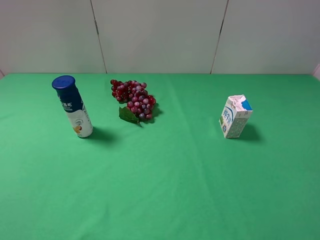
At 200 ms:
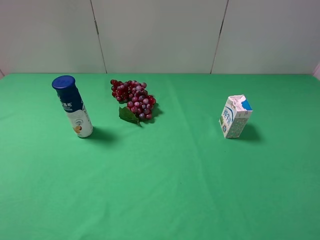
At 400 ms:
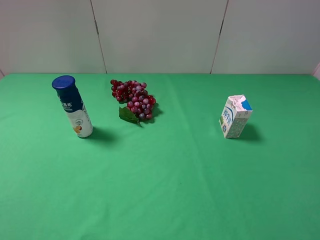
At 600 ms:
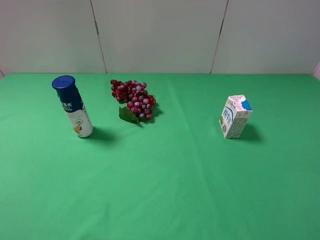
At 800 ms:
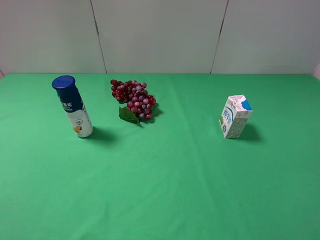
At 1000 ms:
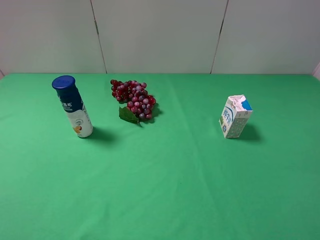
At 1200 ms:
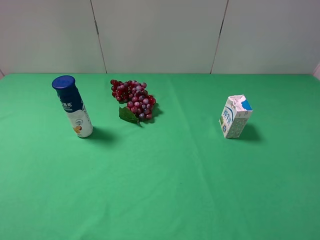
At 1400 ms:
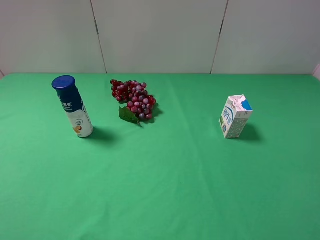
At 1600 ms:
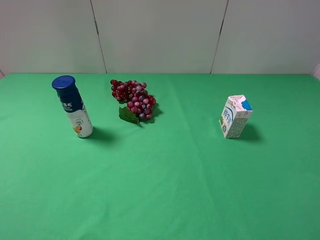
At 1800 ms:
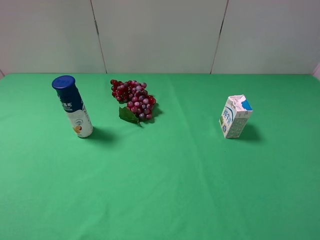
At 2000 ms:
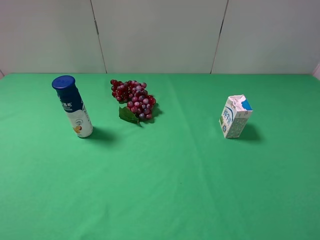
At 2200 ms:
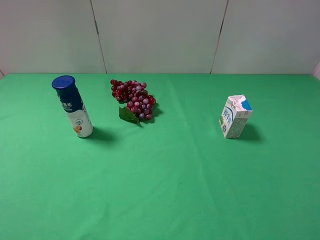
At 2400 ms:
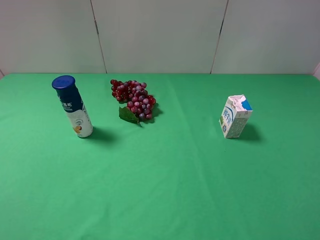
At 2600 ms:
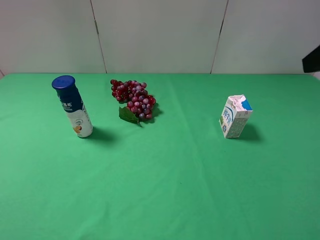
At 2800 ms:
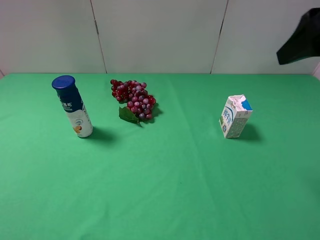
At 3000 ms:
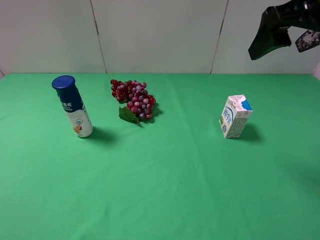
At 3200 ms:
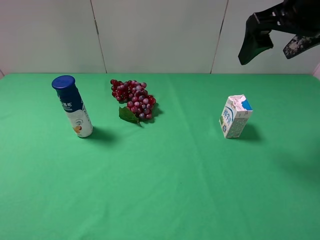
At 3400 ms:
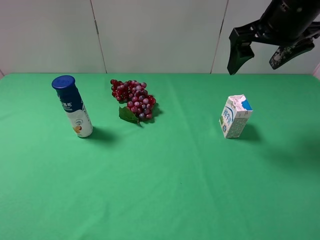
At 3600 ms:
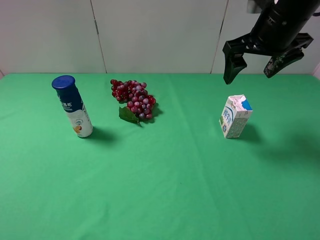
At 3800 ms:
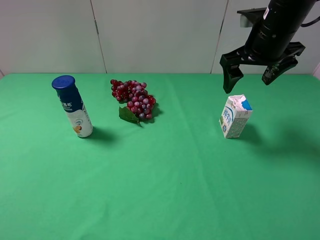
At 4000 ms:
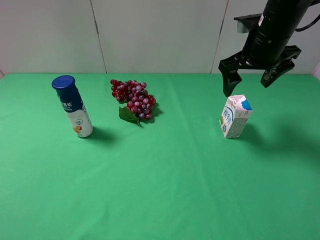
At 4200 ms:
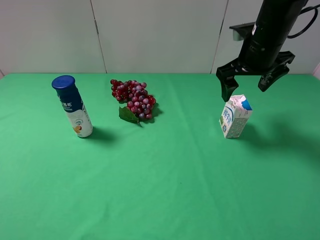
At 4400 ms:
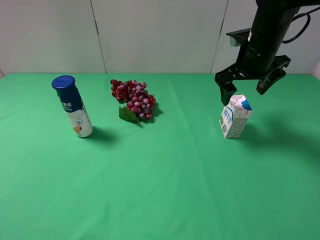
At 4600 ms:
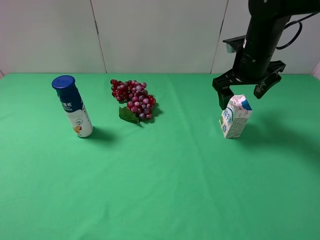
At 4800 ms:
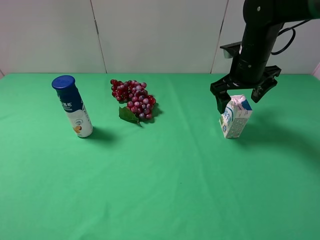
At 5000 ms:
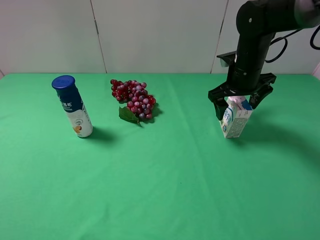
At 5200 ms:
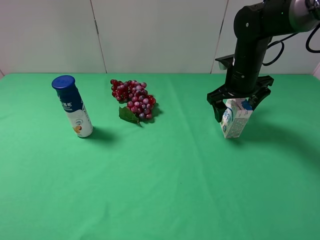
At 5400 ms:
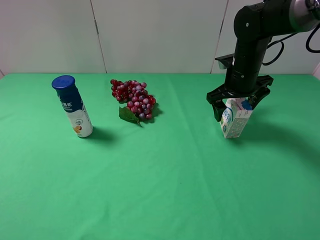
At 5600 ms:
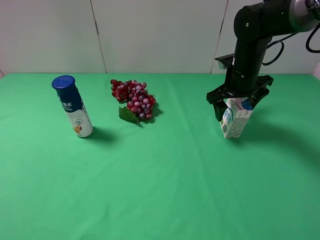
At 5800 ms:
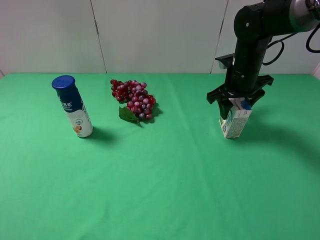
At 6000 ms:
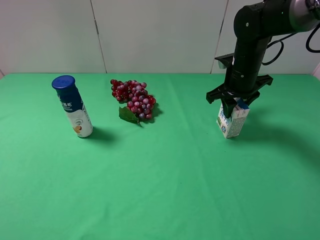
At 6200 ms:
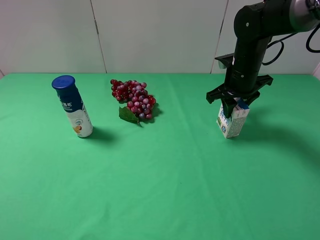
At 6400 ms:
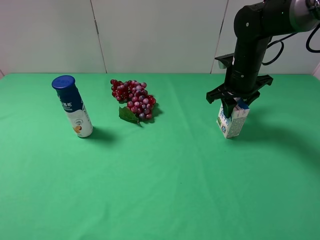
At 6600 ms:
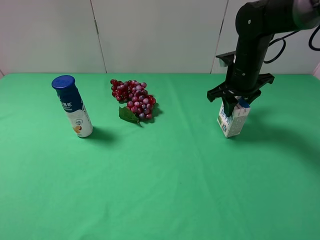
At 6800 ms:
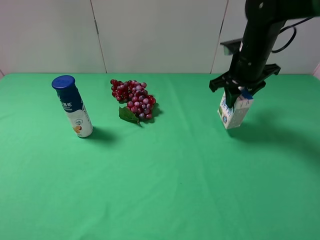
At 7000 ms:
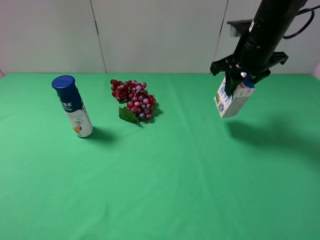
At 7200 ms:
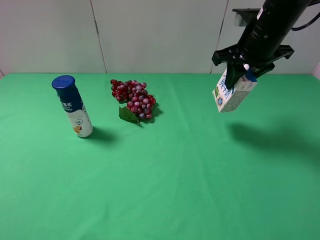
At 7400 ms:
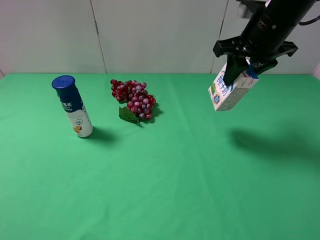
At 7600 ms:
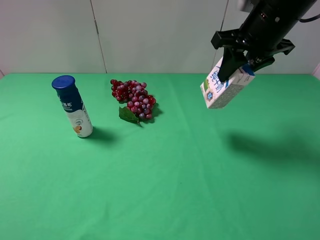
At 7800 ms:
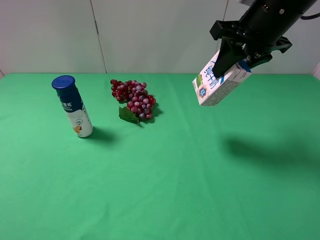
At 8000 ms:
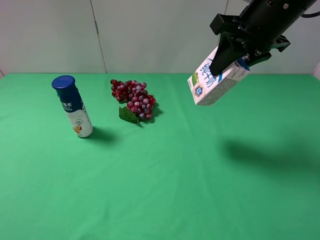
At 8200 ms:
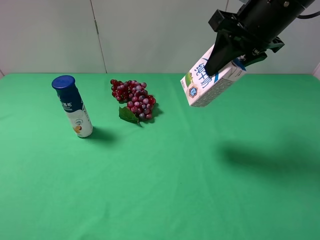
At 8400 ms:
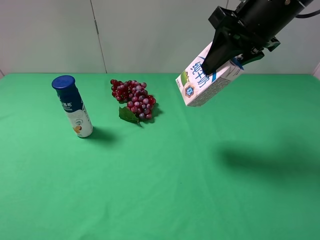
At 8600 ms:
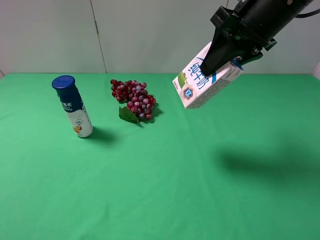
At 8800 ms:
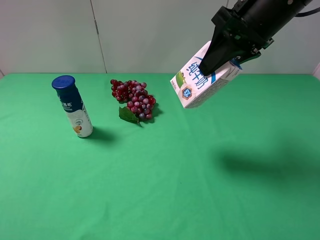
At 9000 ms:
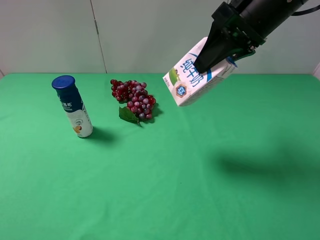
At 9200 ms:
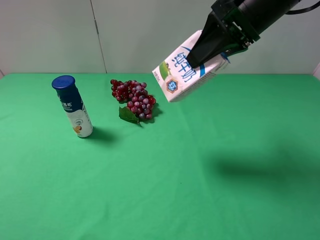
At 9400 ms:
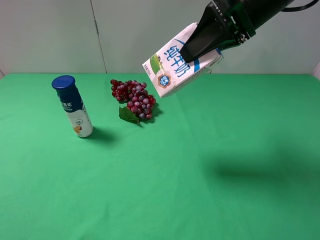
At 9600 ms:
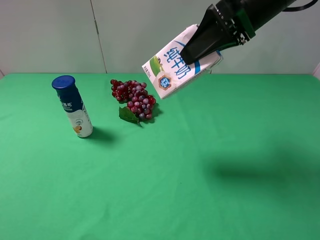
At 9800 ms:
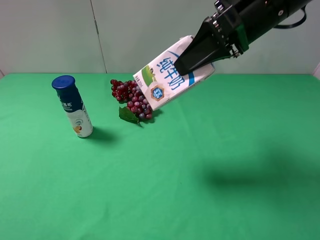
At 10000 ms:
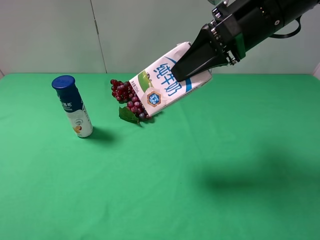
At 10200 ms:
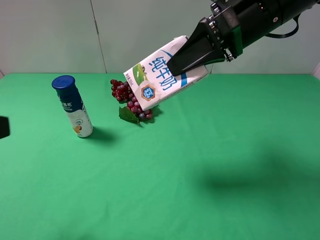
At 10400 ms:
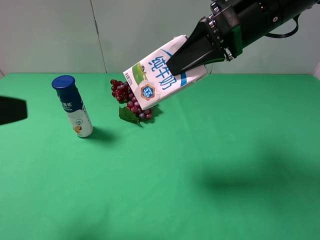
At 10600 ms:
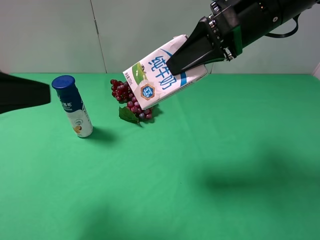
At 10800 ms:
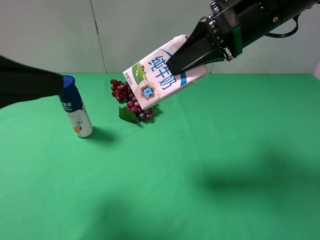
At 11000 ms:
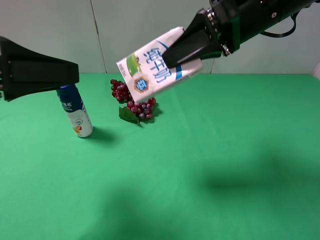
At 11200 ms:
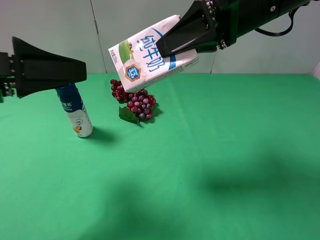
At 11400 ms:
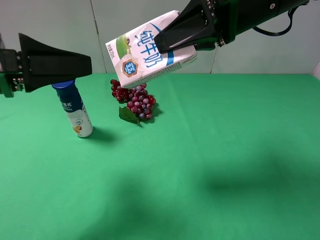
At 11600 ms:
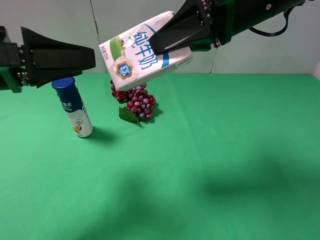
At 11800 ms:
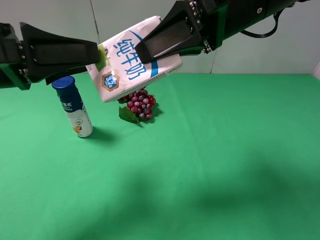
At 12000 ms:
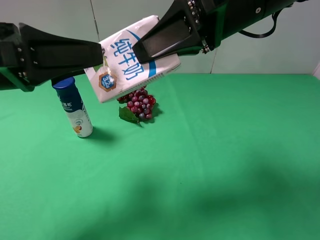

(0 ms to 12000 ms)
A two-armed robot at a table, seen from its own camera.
Task of the whole recording: use the right gripper to pick up the item and transfer it from the right gripper to the left gripper.
0 ms - 1600 ms: Neither gripper changes place.
1600 ms - 3000 ms: The right gripper moves forward, approximately 25 cm.
3000 ms - 4400 ms: The right gripper shifts some 15 cm downward and forward.
4400 ms - 6000 ms: The right gripper shifts roughly 5 cm downward, and closes.
6000 ms - 7600 ms: The right gripper shifts approximately 15 cm upward and backward.
9000 ms - 10400 ms: The left gripper heads forward, covering roughly 10 cm.
10400 ms - 12000 ms: The left gripper heads forward and to the right, covering roughly 10 cm.

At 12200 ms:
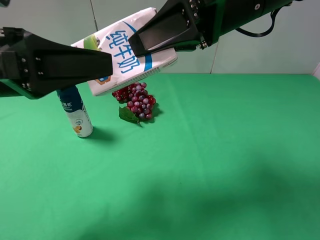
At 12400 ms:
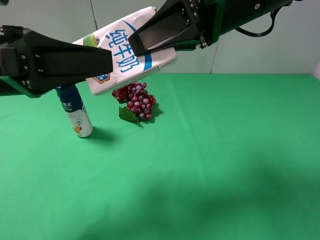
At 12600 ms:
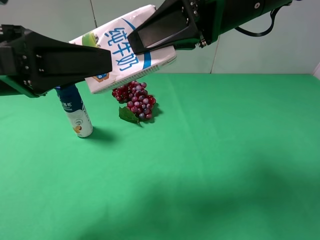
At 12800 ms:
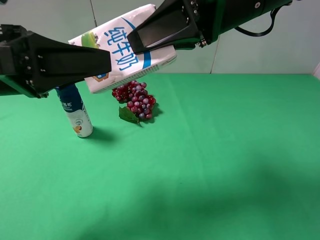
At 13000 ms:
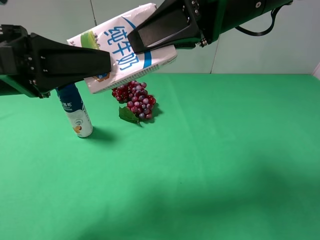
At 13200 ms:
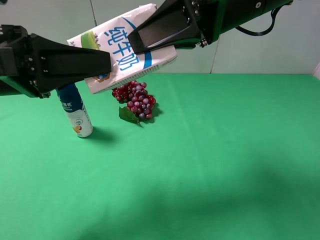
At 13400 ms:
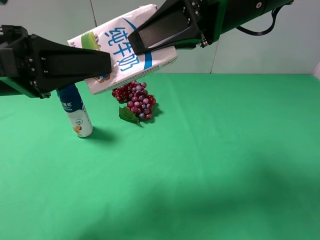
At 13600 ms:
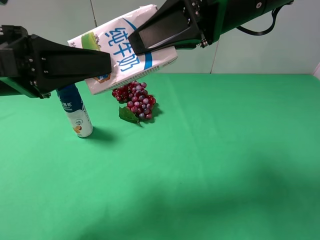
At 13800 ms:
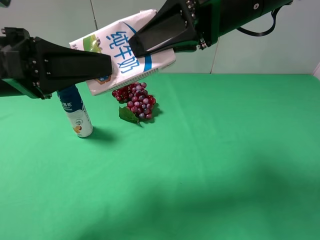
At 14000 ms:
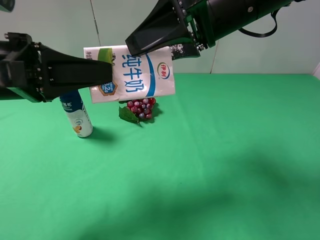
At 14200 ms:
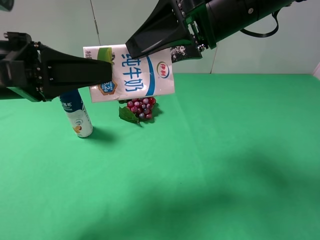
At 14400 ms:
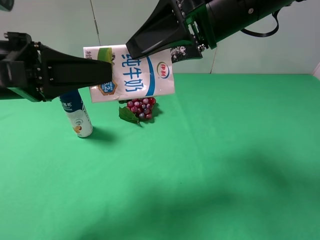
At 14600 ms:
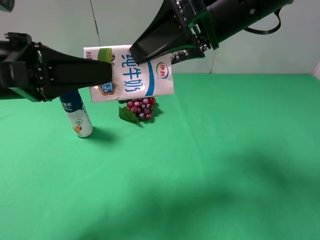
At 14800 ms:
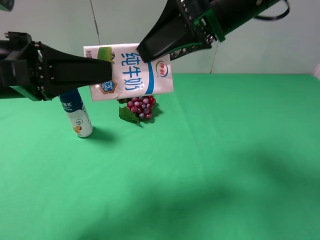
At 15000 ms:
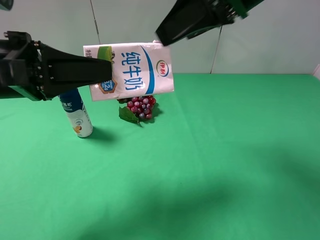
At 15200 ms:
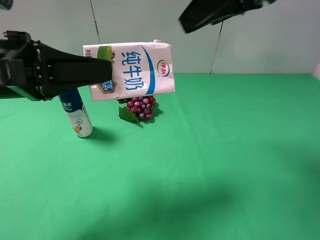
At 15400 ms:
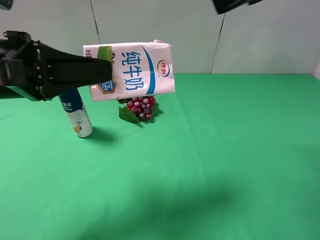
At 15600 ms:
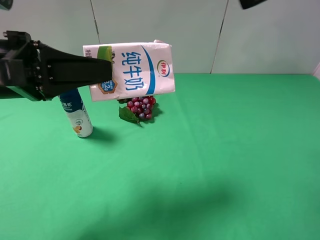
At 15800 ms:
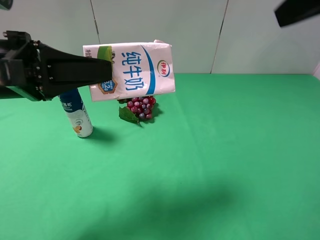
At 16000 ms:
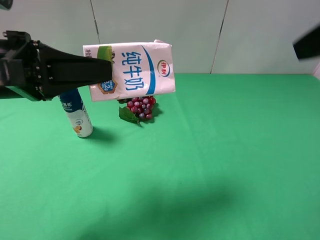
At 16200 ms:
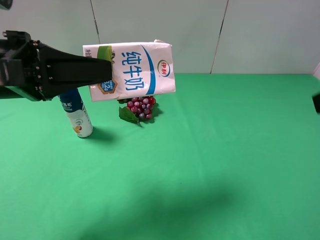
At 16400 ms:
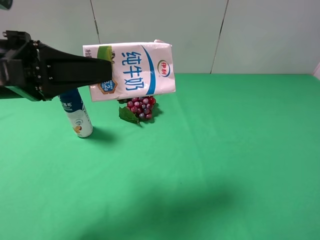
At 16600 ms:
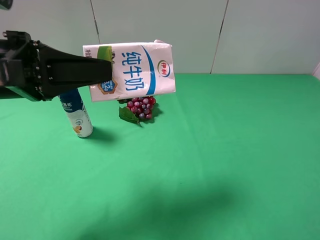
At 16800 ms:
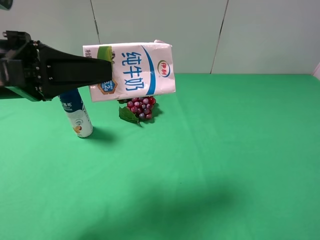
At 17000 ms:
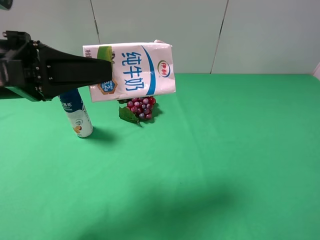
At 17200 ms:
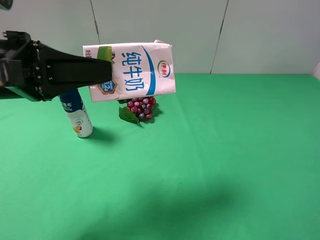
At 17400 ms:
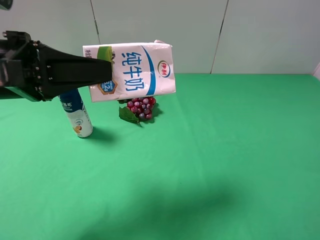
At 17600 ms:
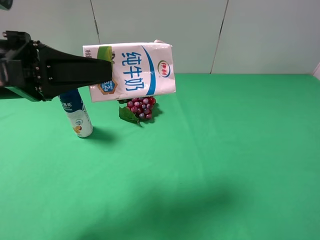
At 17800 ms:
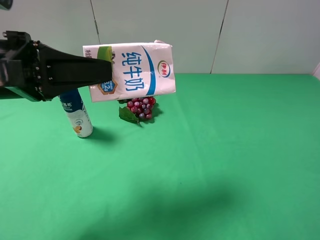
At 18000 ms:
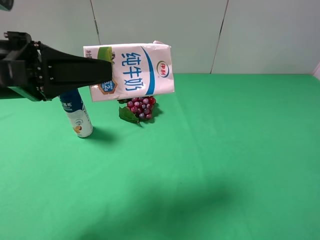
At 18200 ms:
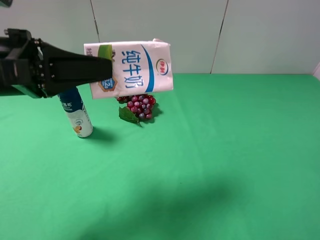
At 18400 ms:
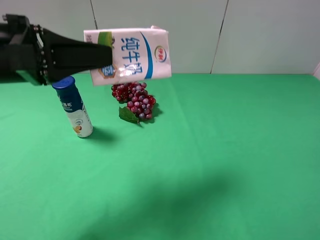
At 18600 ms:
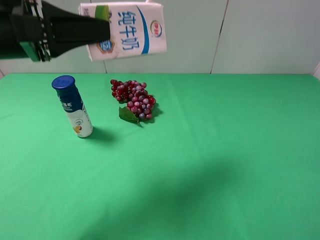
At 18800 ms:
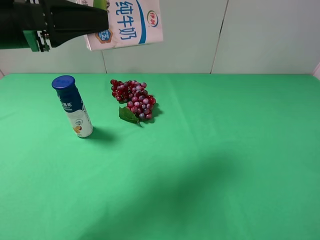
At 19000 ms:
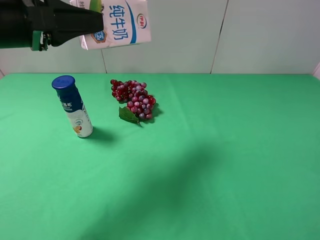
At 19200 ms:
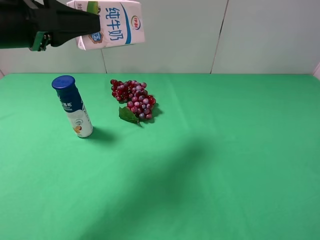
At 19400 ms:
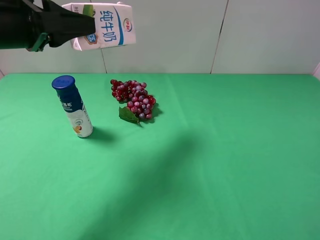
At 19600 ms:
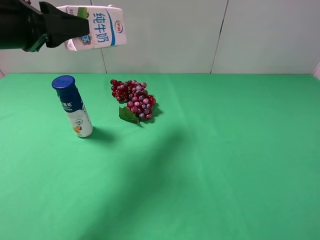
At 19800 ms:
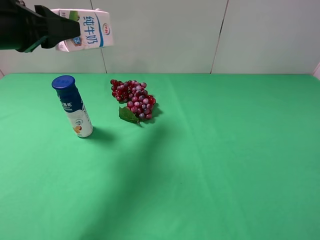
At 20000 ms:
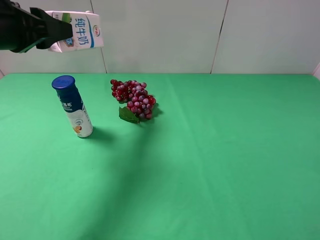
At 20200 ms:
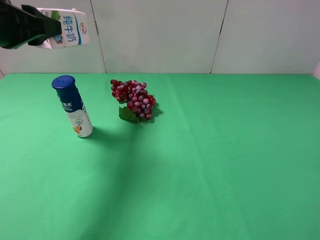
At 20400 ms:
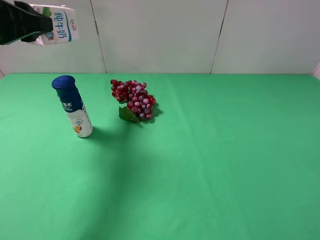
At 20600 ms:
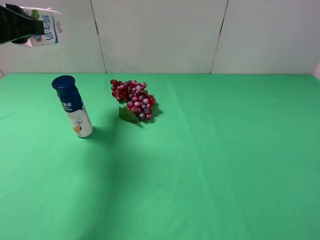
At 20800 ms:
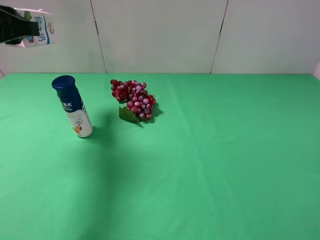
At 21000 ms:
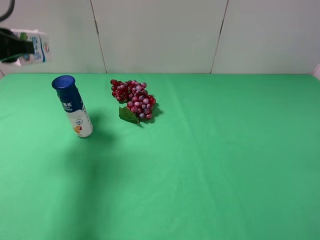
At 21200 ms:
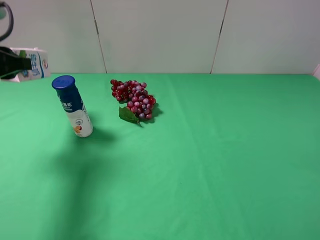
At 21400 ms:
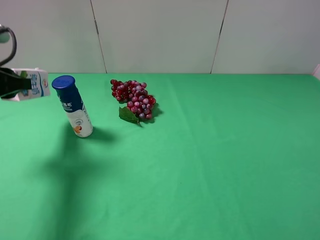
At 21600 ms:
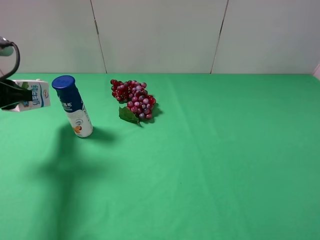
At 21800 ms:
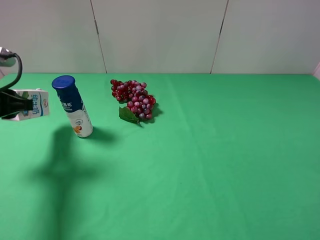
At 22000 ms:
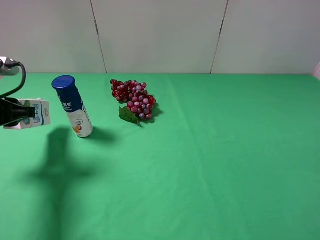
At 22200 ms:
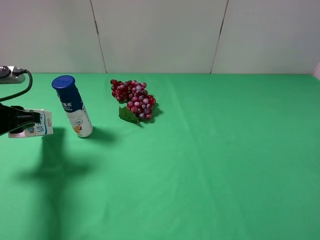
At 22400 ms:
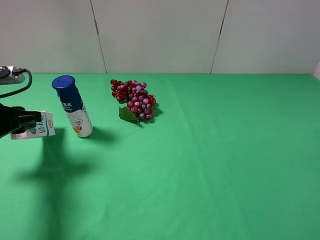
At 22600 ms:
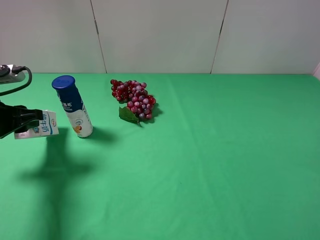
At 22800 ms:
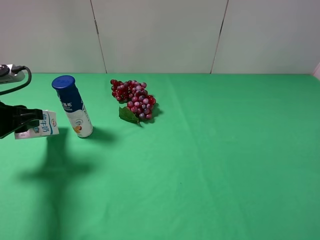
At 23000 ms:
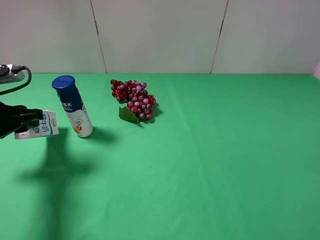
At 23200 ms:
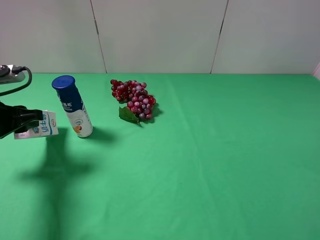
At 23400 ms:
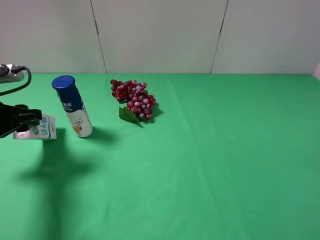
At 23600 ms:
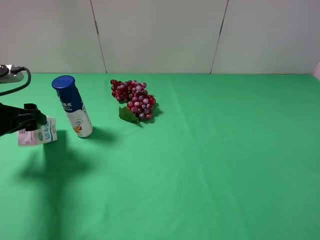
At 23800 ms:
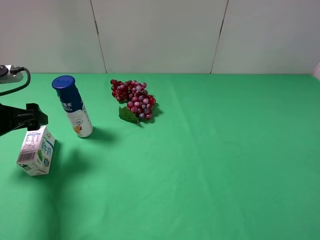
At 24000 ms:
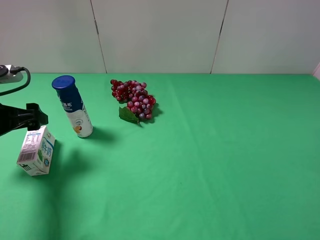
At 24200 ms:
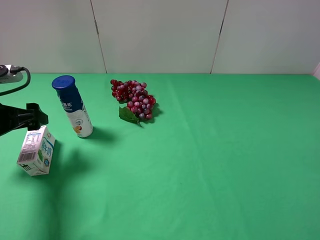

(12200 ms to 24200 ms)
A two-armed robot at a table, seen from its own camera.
Task of the whole recording: use the right gripper to pick up the item and transfer it from the right gripper to the left gripper.
Step, 14200 ms - 23600 ms: The left gripper places milk on the left side of the table.
12200 ms - 13800 ms: The left gripper closes.
13800 ms - 15200 ms: The right gripper travels upward and to the right by about 10 cm, and opens.
15200 ms - 16600 ms: The right gripper is displaced backward, to the right and downward by some 25 cm.
18200 ms - 19800 ms: The left gripper is displaced forward by roughly 5 cm.
19800 ms - 21200 ms: The left gripper travels to the left by some 5 cm.
21200 ms - 22600 ms: The left gripper travels downward by approximately 10 cm.
22600 ms - 24200 ms: The left gripper opens up.
